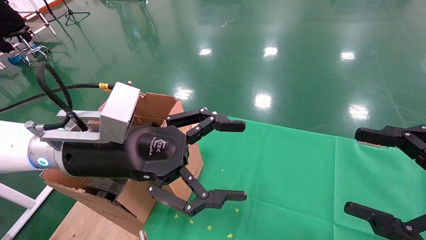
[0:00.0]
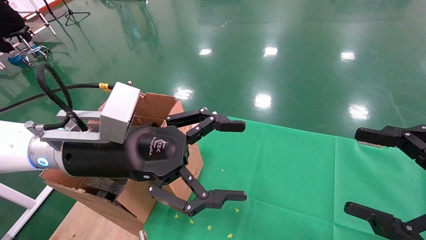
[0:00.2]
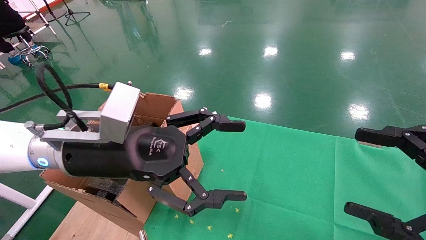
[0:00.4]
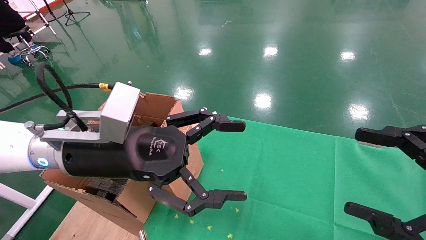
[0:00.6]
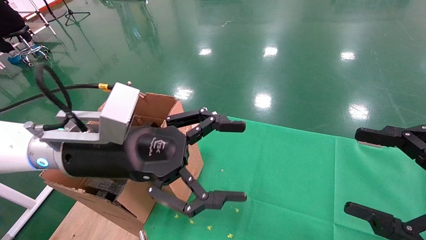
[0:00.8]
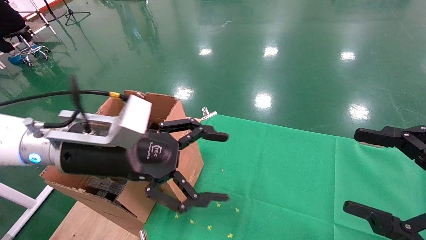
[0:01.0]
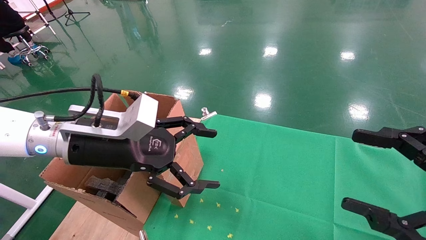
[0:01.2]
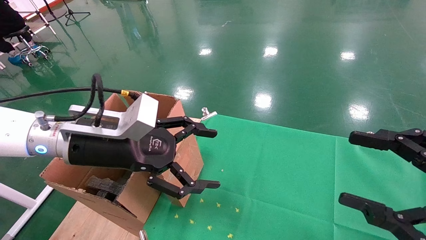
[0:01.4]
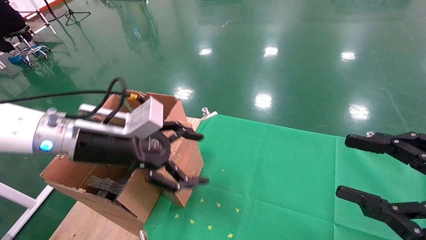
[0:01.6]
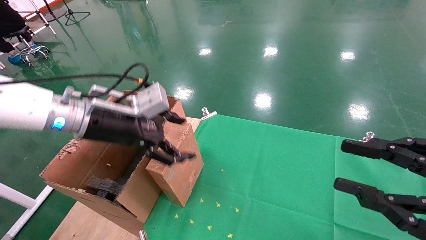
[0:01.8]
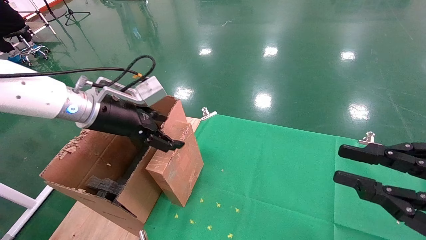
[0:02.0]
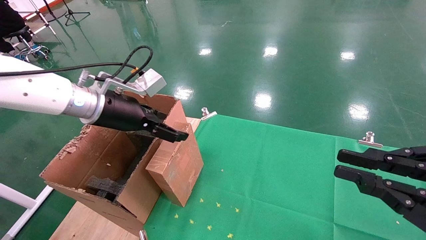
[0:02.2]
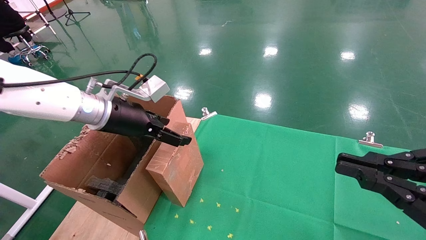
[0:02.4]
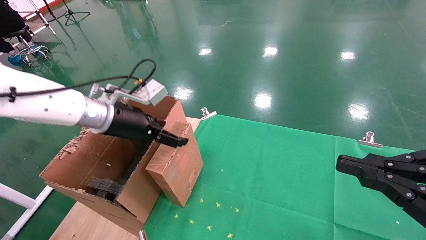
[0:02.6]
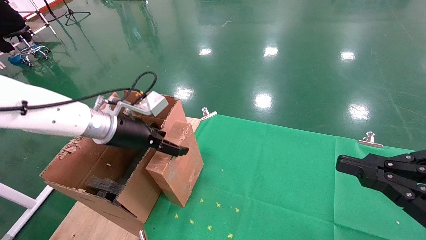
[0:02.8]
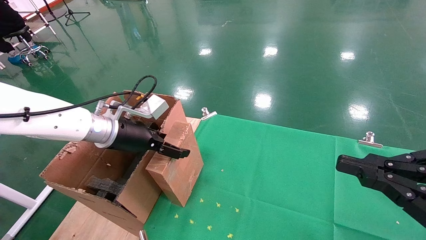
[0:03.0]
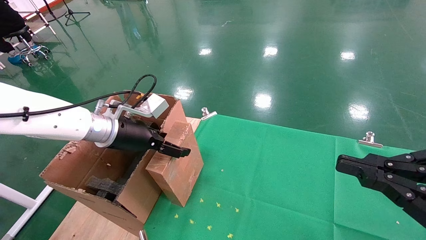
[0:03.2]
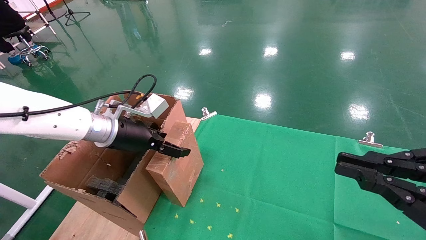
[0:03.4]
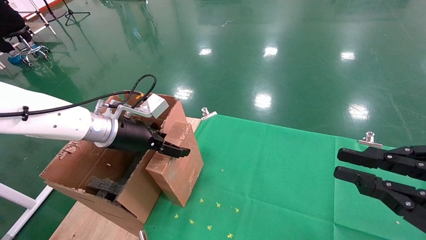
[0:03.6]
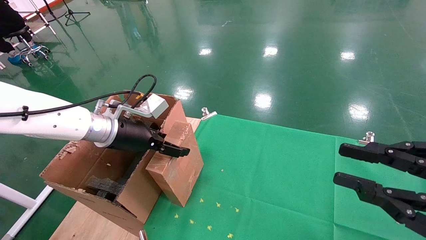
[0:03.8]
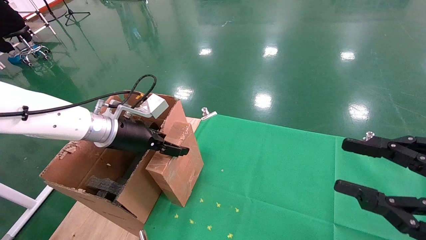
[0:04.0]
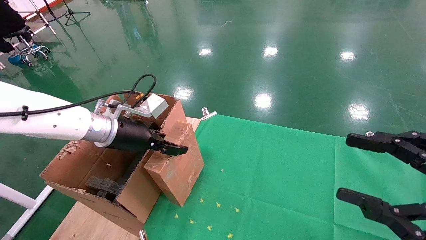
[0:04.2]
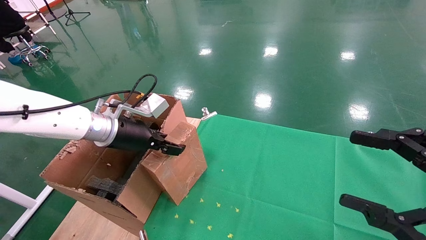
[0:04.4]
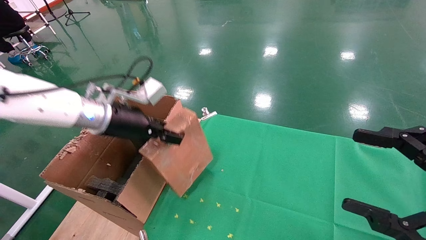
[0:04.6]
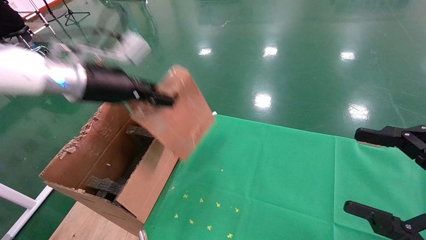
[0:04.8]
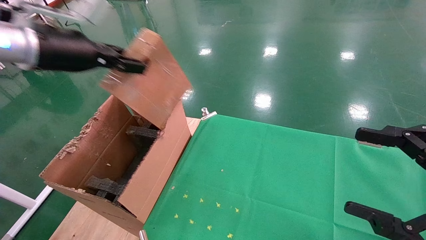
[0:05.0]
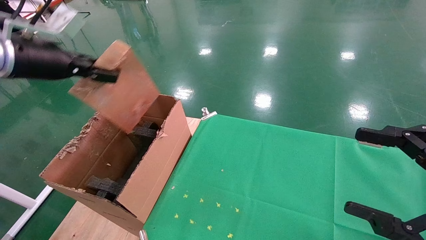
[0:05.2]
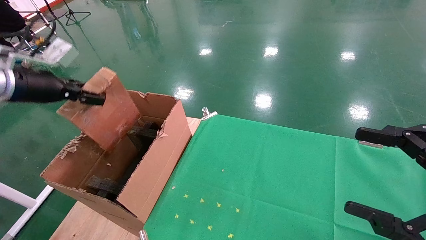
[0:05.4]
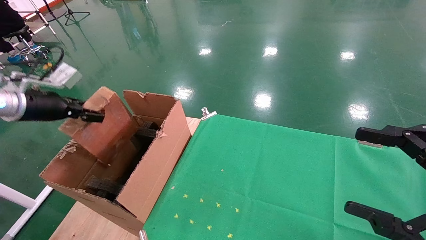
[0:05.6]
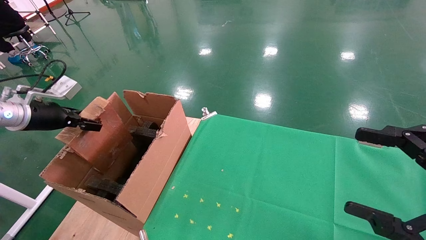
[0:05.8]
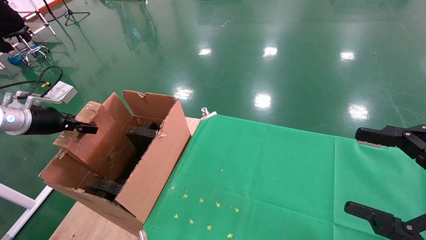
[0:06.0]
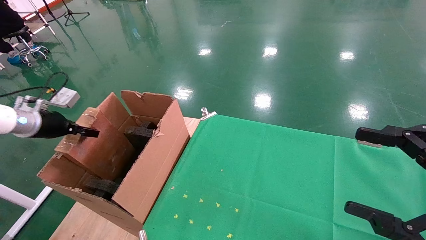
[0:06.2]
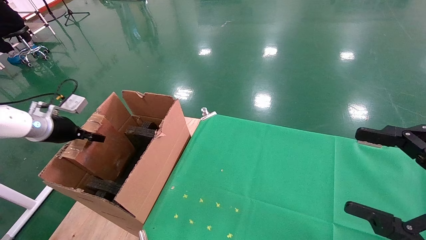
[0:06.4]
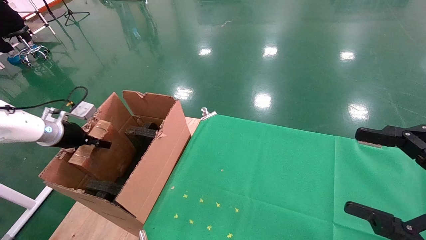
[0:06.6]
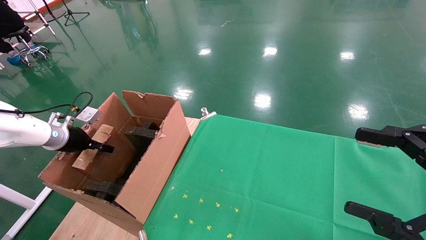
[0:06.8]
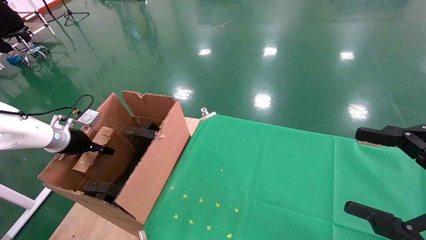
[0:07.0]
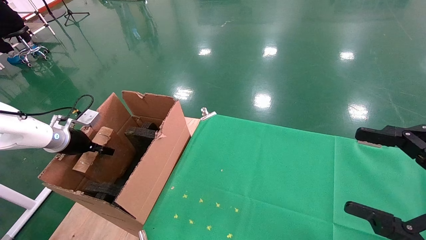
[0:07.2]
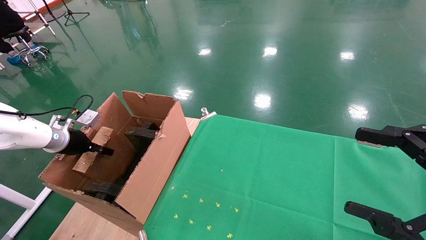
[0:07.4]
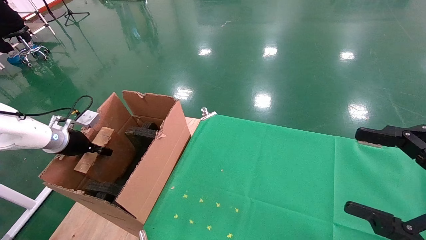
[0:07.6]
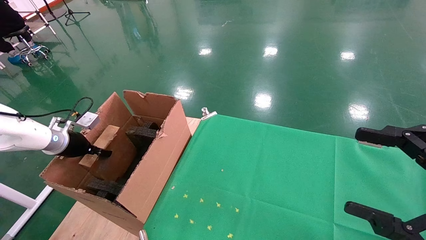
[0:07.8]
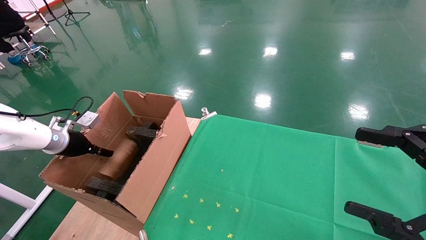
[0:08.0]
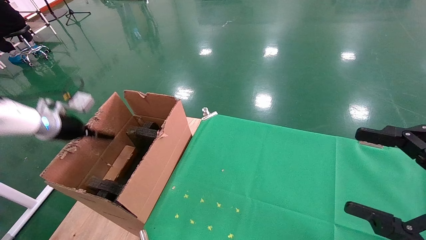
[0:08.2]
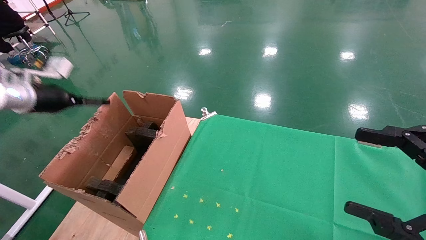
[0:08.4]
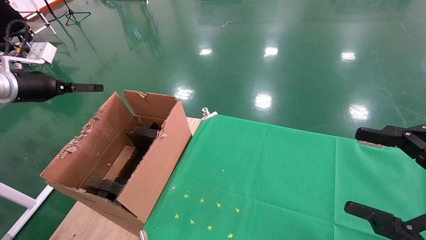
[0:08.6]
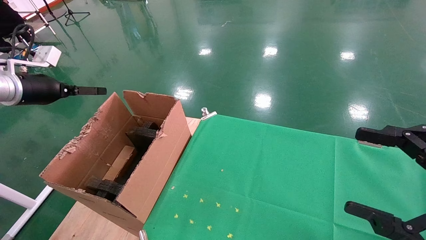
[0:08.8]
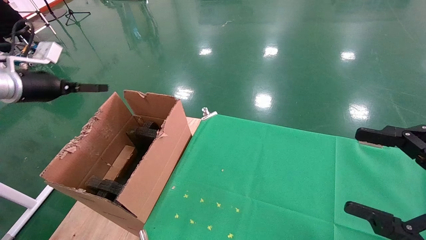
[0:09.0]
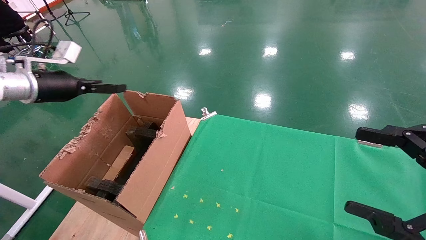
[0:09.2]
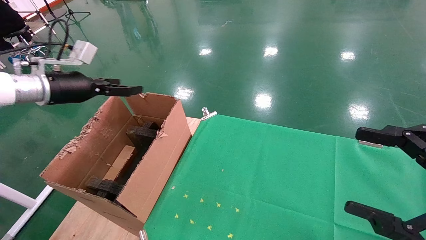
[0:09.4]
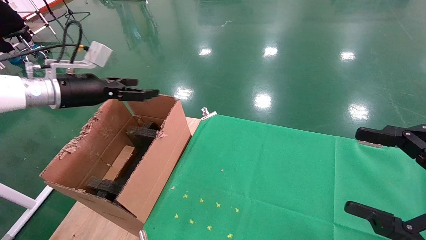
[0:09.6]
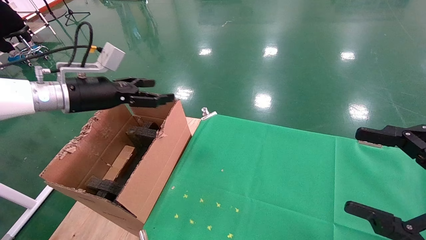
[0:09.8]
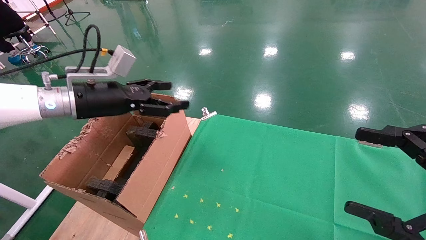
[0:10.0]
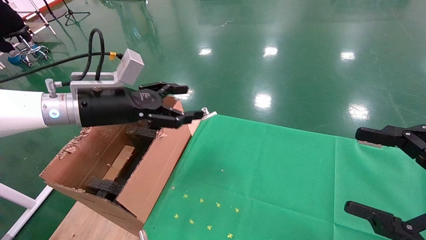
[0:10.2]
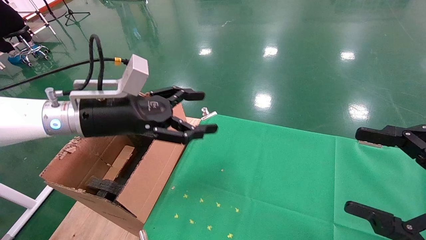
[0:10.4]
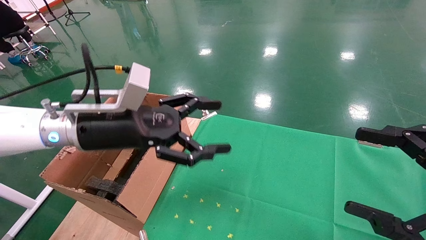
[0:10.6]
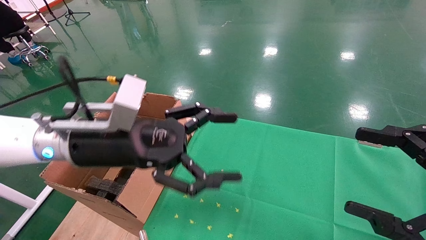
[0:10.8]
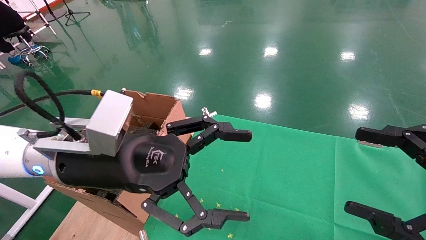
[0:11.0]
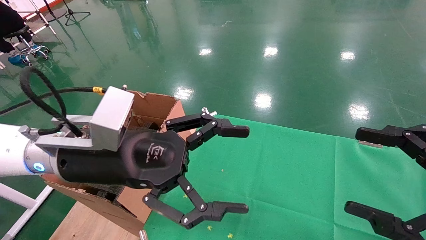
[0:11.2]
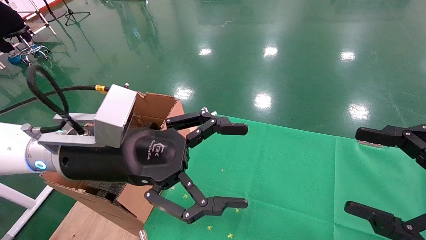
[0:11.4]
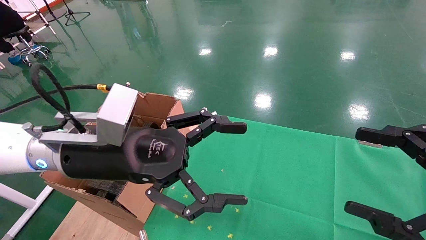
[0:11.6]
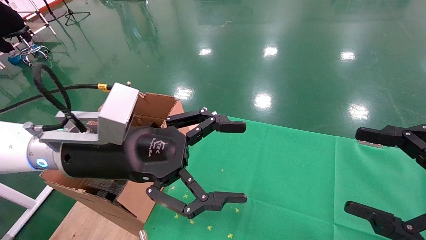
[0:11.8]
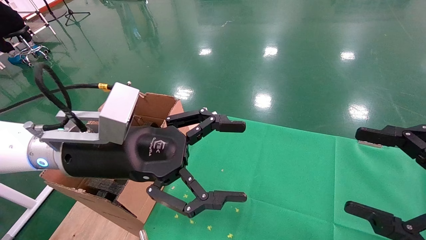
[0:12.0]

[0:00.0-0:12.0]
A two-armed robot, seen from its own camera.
Task of the whole recording: using a robotic arm to pick up a cardboard box and palace it the carton.
Step, 0:01.0 to 0:04.2: Pick up the mouse and the power cord paper box.
Step, 0:04.4 to 0:08.4: Place the mouse and the power cord paper box into the container.
0:00.0 to 0:01.6: The left gripper moves about 5 cm.
0:01.6 to 0:03.0: The right gripper closes, while the left gripper moves forward, about 5 cm.
0:03.0 to 0:04.4: The right gripper opens its fingers, while the left gripper closes its fingers.
0:04.4 to 0:06.0: The left gripper shifts roughly 25 cm to the left.
0:06.0 to 0:07.6: The left gripper heads downward, covering some 10 cm.
0:07.6 to 0:09.0: The left gripper moves upward, about 15 cm, and opens.
0:09.0 to 0:10.4: The left gripper moves to the right, roughly 20 cm.
0:10.4 to 0:12.0: The left gripper moves backward and to the right, some 10 cm.

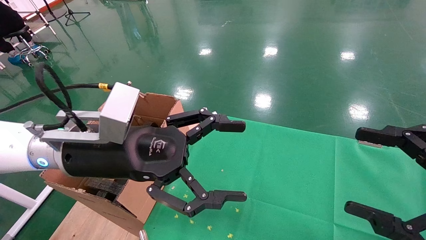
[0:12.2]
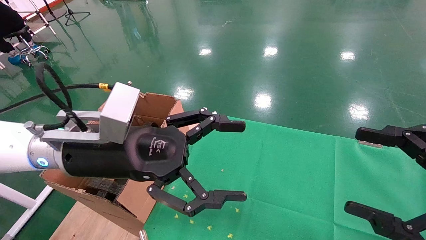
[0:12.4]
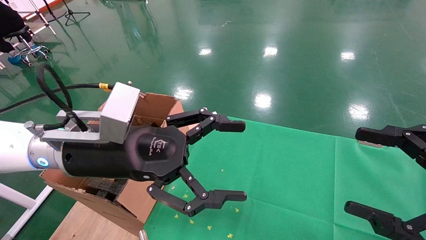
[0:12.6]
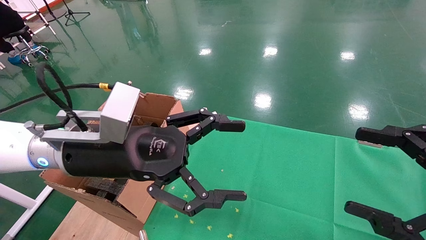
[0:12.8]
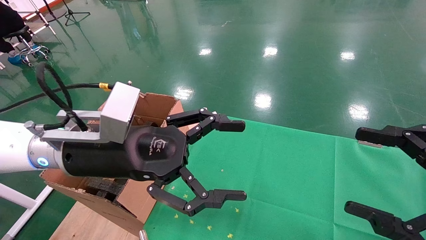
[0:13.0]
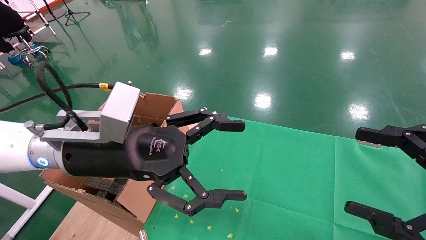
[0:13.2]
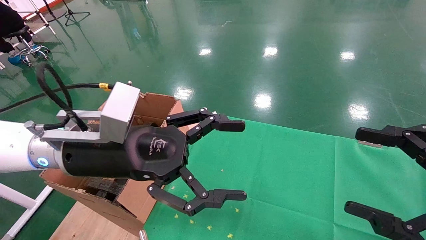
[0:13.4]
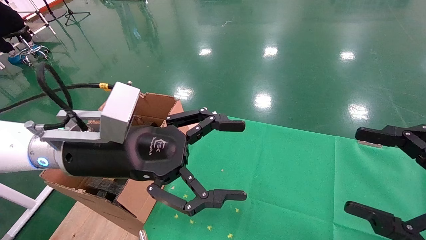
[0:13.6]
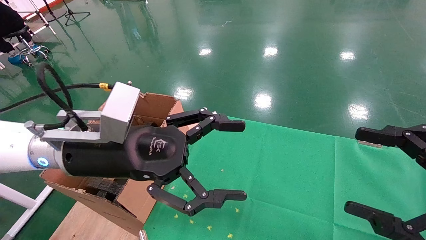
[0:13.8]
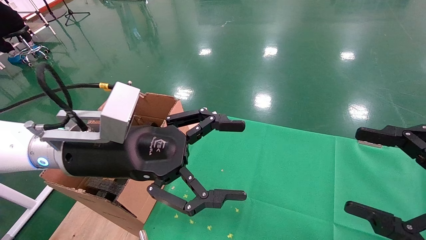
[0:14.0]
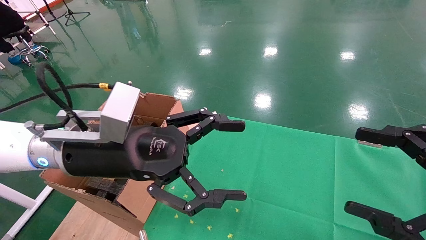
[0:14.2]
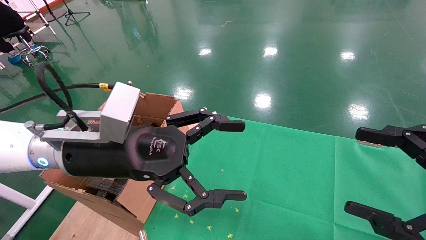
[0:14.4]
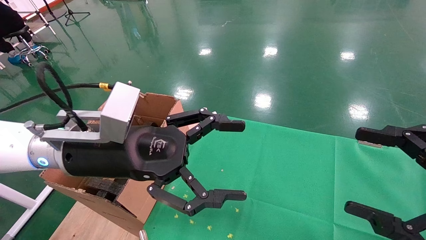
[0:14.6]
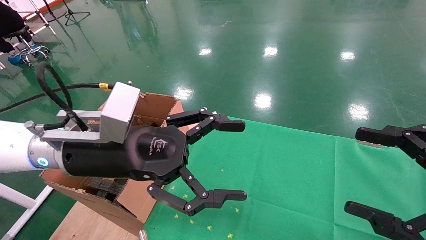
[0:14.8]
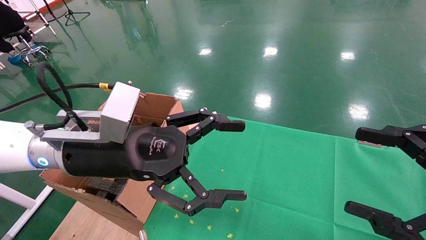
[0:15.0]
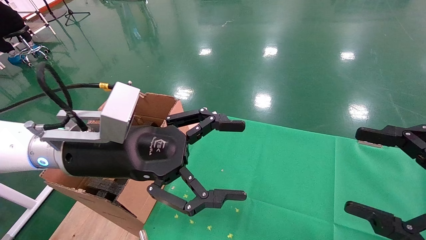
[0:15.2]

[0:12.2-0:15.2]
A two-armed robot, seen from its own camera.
Task of the whole recording: using a robotic arm to pick up a cardboard box and palace it the carton.
0:12.2 to 0:15.2: The two grippers keep their place.
